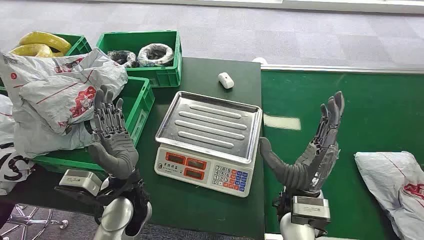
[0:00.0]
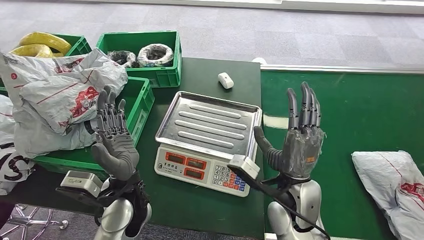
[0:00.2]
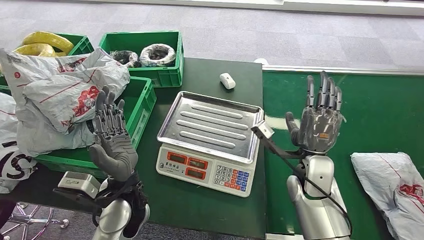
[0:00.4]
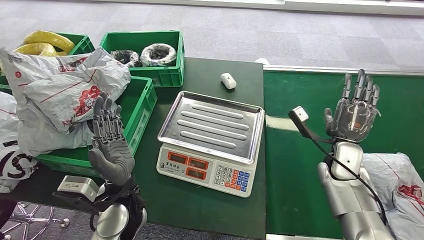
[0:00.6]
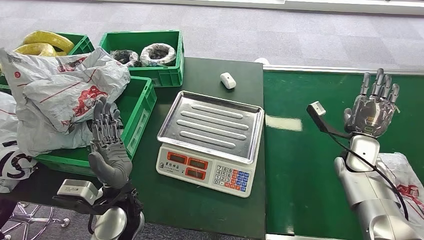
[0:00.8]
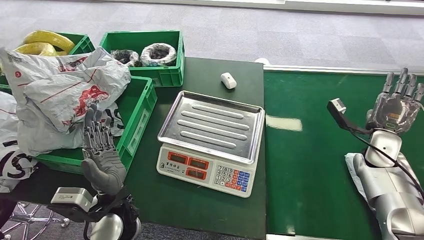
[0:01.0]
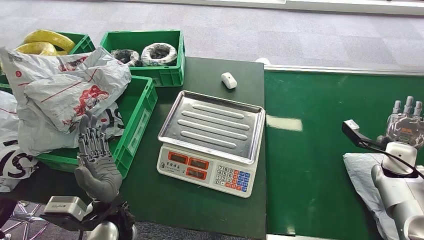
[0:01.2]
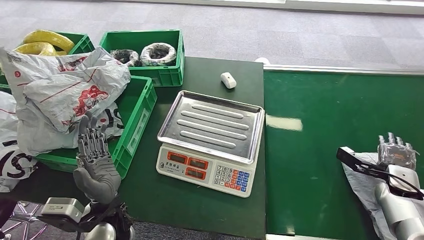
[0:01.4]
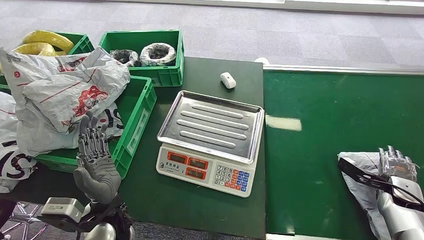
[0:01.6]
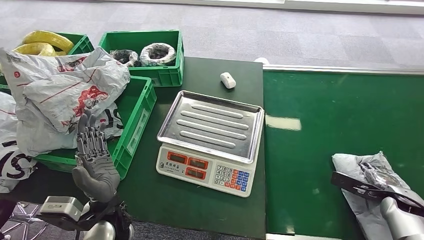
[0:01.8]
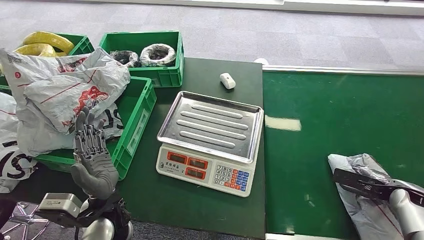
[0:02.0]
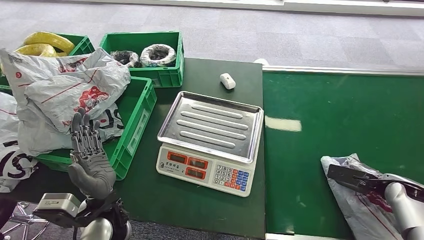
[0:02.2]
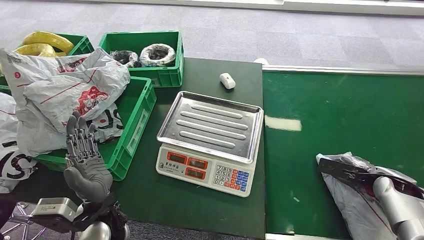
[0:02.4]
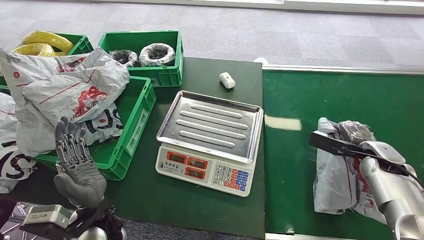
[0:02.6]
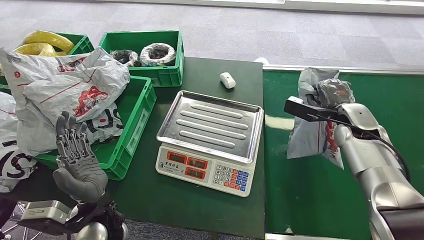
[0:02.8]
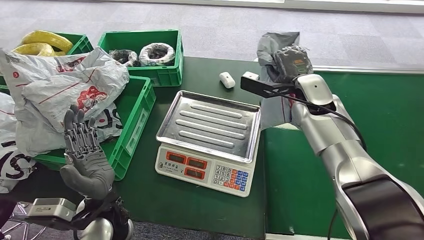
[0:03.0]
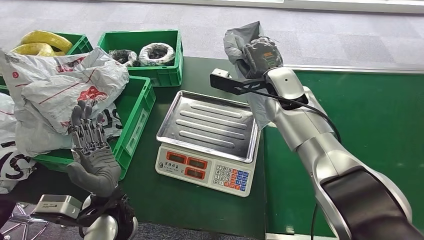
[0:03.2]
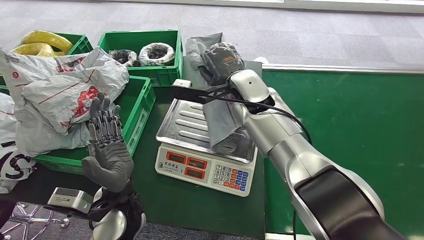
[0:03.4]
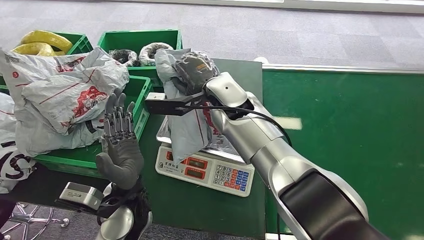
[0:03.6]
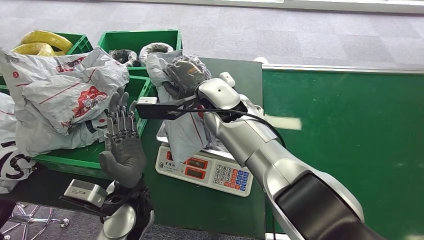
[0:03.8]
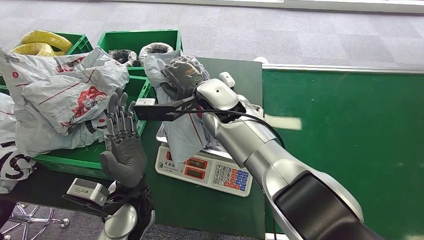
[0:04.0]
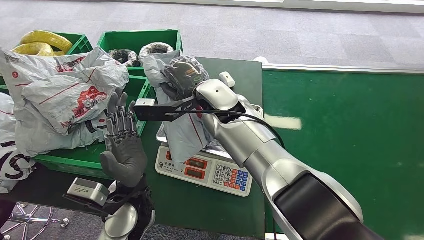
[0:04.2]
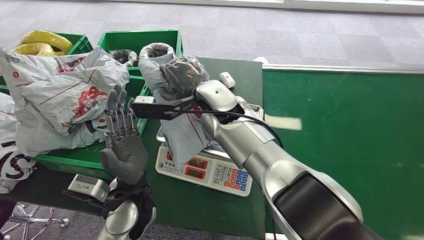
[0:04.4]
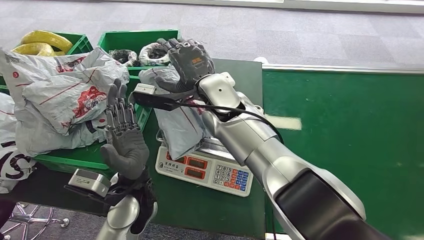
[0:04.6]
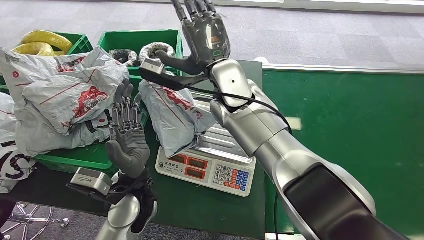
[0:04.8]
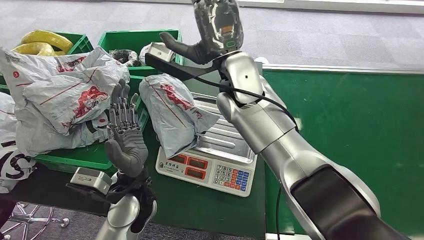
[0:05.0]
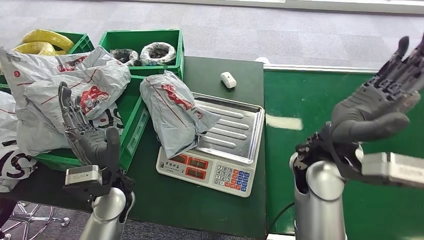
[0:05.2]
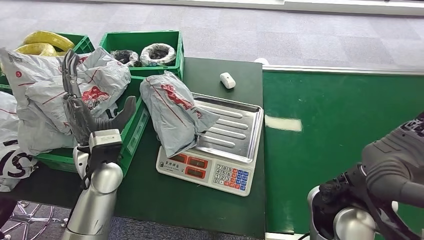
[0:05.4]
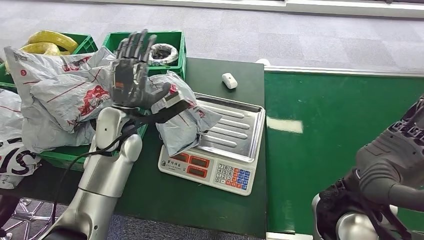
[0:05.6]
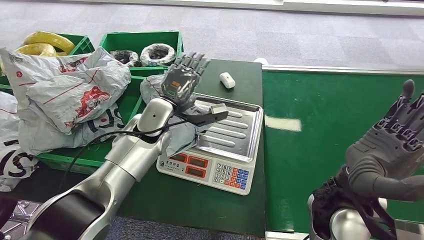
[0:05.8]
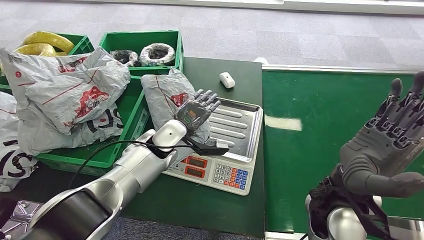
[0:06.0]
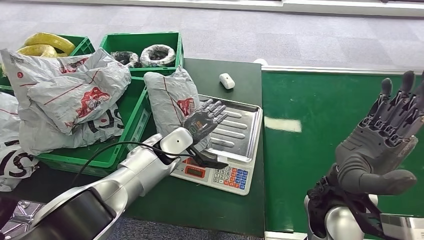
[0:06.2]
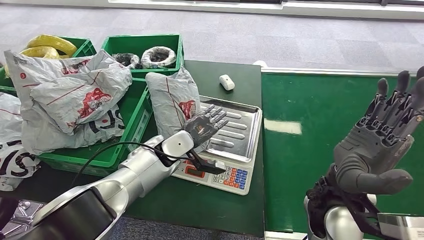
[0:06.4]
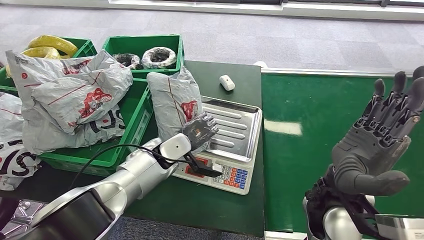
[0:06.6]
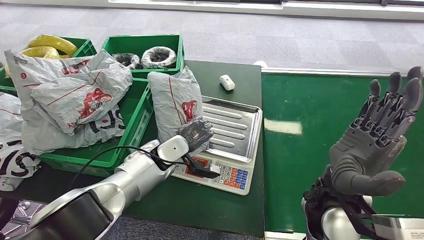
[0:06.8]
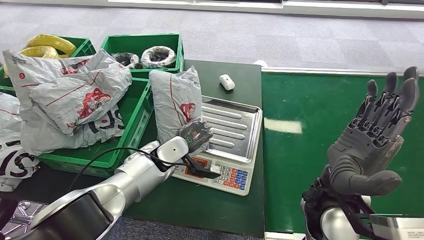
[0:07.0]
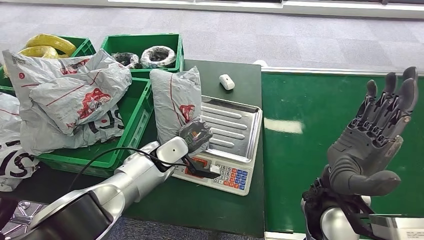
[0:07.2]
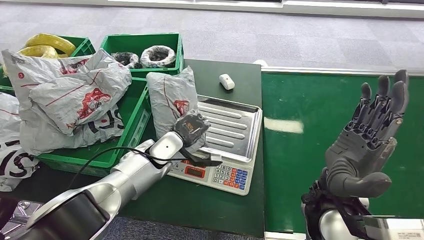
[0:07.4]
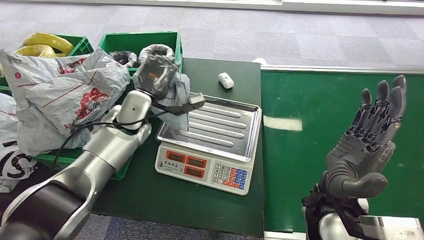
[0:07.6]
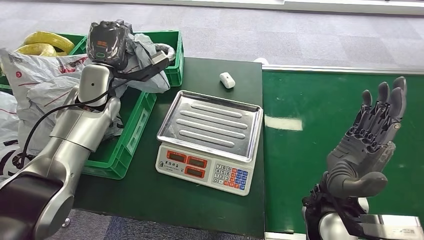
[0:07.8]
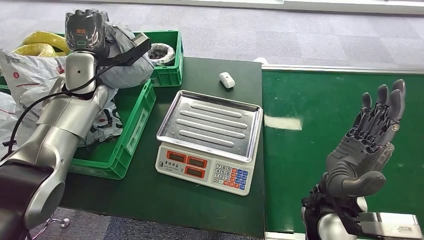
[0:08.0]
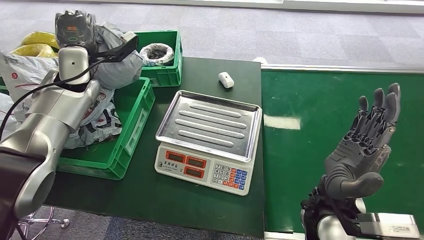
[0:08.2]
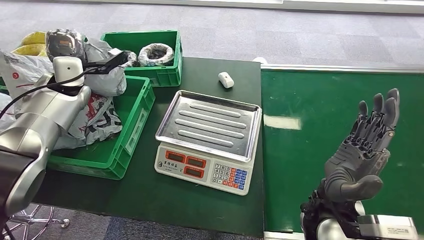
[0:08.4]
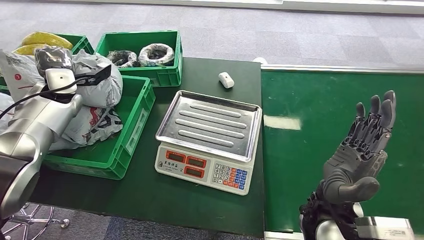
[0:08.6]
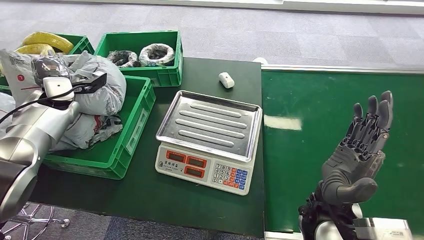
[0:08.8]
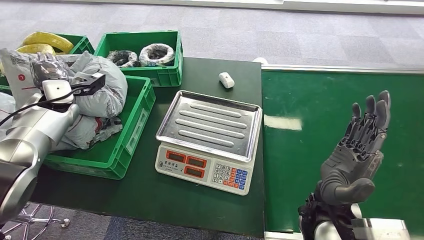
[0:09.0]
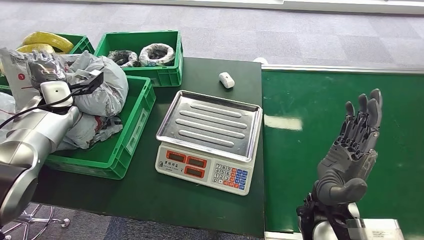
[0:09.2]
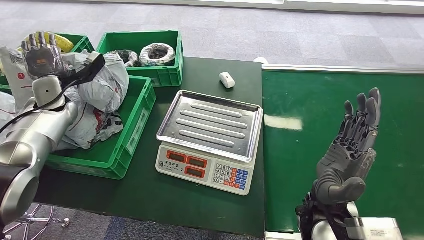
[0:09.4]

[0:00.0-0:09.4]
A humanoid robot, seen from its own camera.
Step, 0:00.0 to 0:02.8: Pick up the package from the conveyor belt.
Step, 0:03.0 to 0:05.2: Place the package onto the inbound machine.
Step, 0:05.4 to 0:08.0: Pick up the package from the inbound machine.
Step, 0:08.4 to 0:09.4: Place the package into the parcel locker.
